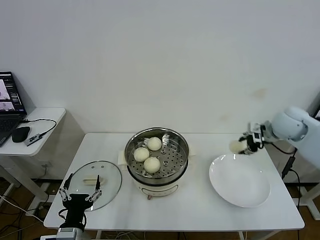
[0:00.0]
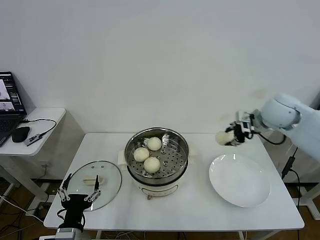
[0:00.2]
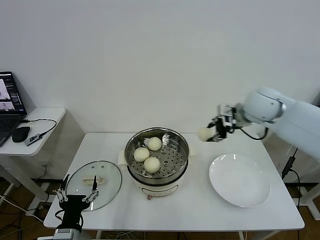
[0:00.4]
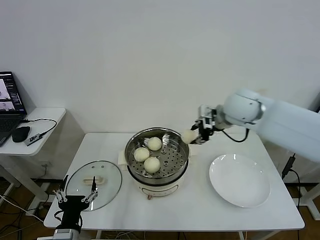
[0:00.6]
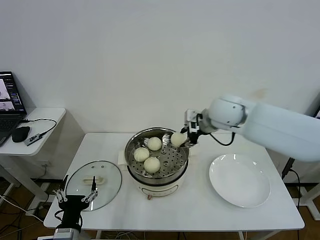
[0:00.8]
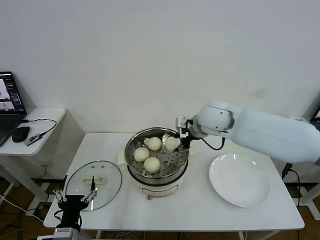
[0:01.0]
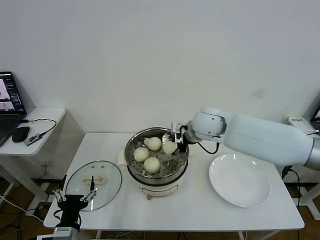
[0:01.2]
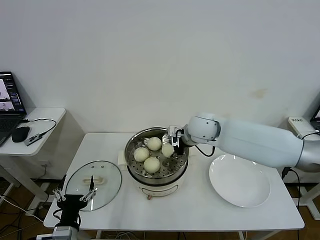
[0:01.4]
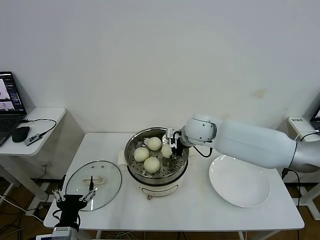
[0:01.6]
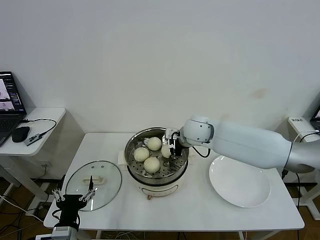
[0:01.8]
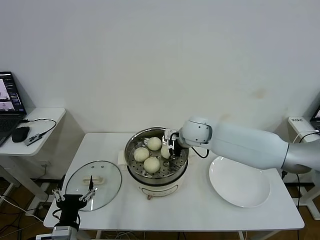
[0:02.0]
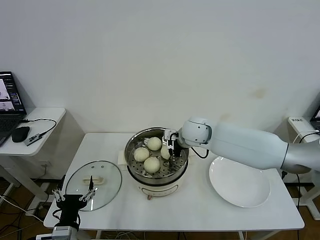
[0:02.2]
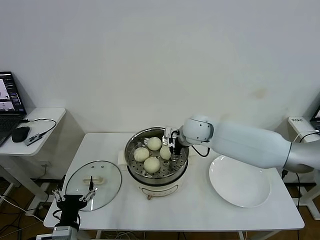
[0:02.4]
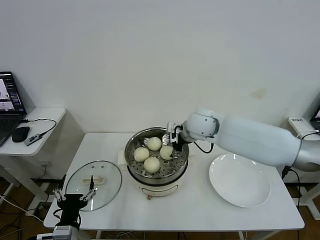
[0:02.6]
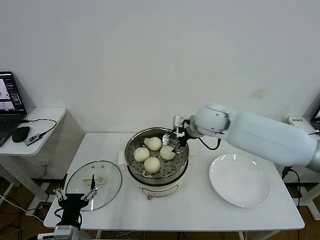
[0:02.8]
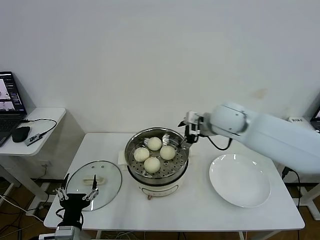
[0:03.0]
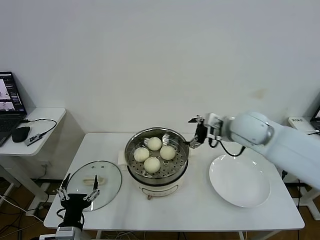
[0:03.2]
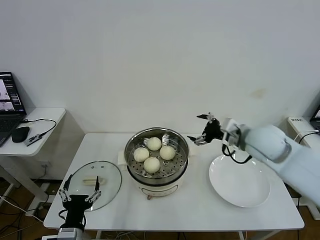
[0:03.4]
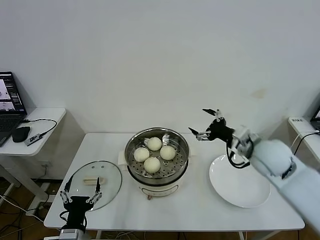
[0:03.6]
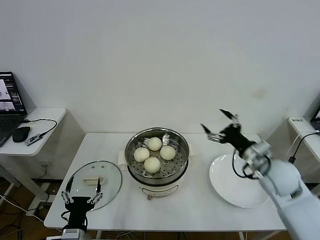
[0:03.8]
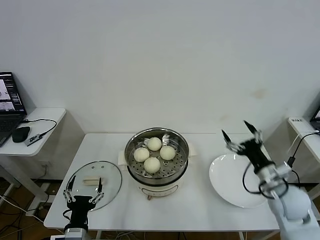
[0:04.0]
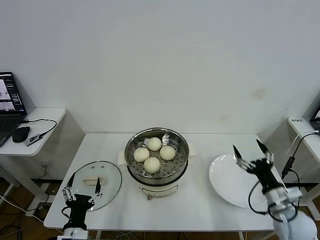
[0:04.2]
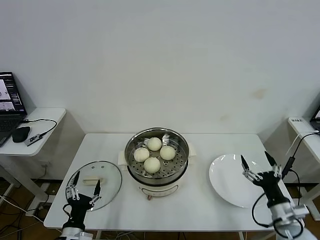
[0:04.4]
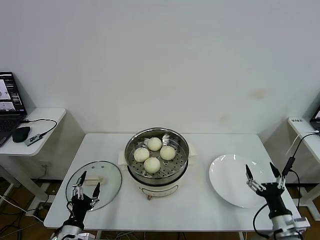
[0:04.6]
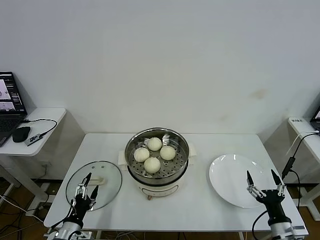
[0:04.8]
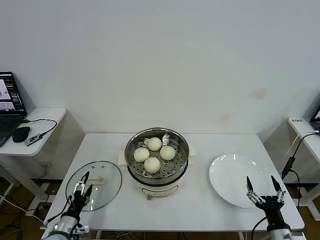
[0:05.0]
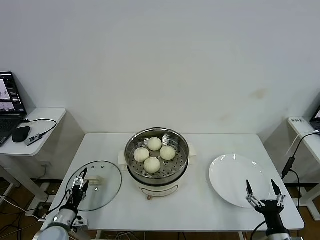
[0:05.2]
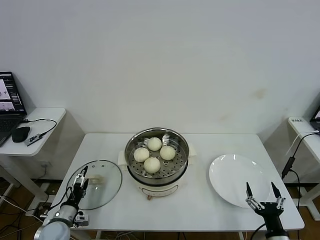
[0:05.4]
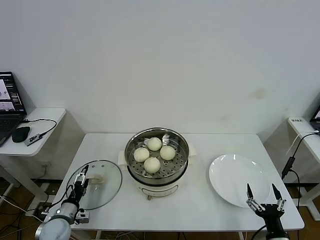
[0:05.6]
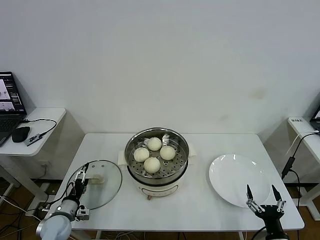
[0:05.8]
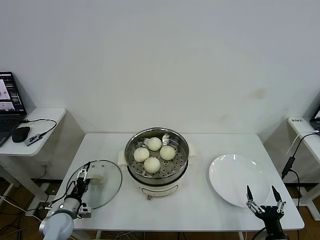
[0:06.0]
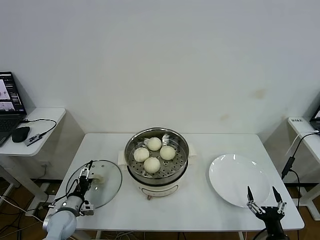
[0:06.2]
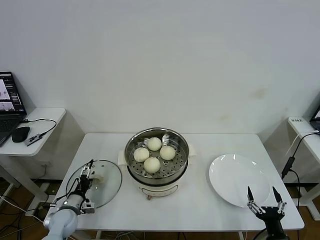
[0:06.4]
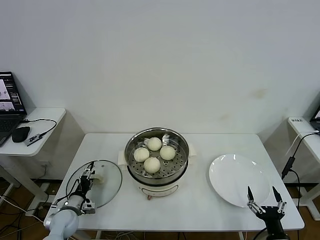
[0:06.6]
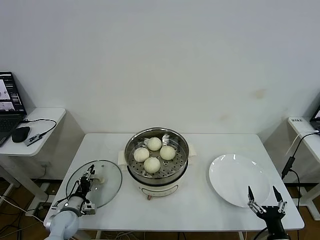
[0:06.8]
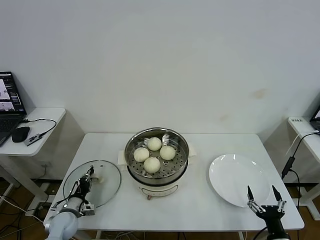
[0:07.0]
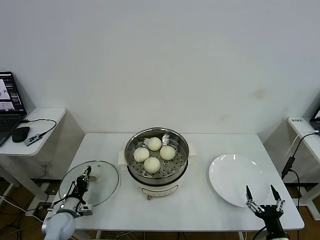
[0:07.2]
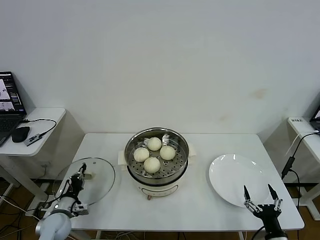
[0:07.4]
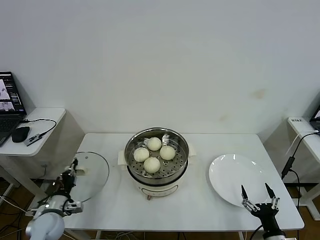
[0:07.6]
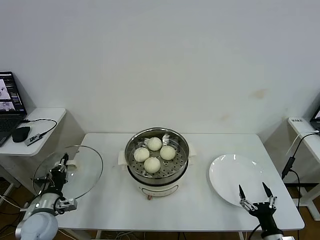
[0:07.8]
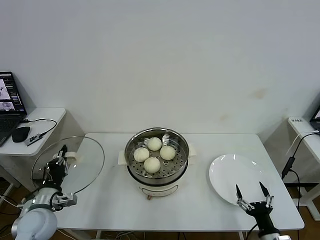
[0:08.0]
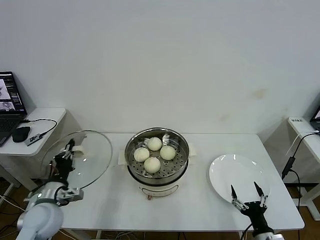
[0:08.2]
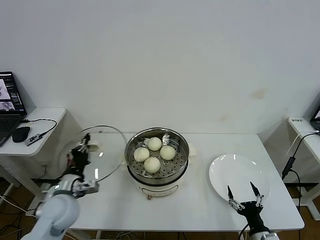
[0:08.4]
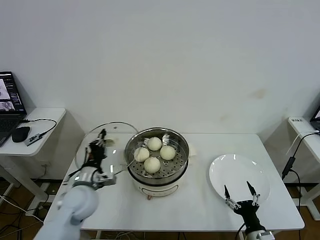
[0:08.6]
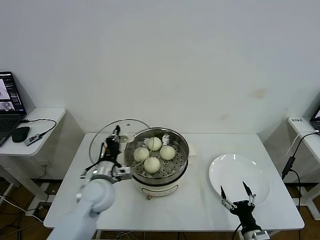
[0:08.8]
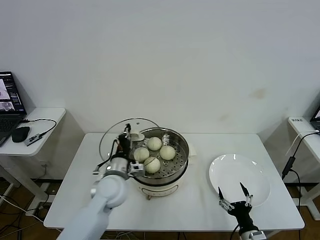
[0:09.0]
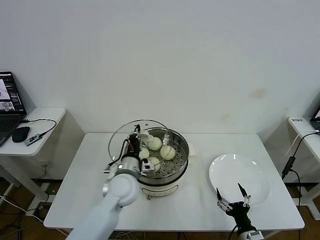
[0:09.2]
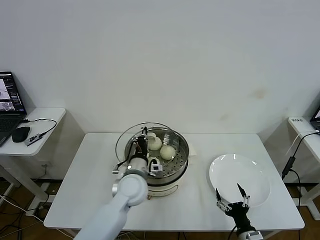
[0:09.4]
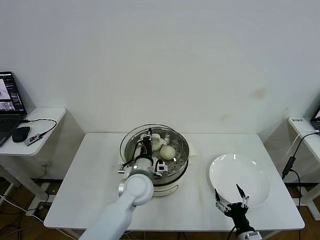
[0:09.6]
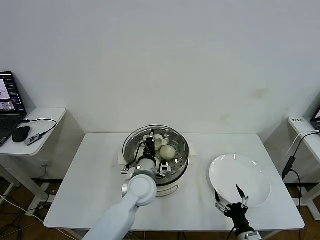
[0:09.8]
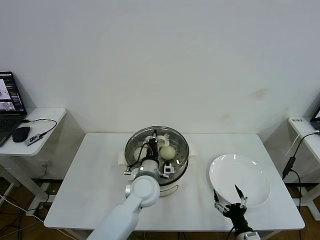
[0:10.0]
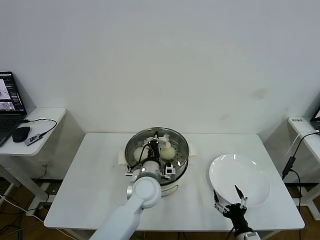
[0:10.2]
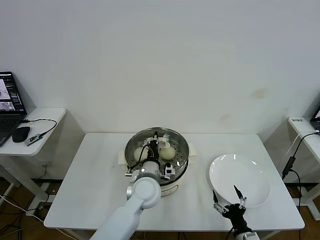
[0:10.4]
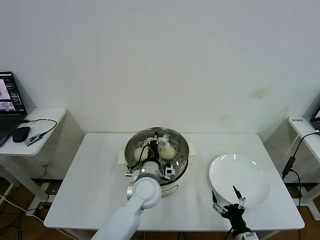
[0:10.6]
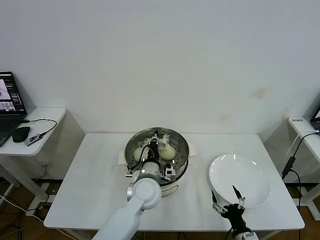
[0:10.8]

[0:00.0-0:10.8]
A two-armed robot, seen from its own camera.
Task of the whole recording: take steamed baozi put them in steamer then cover it.
Step, 0:00.0 to 0:02.4: Place the baozi on the steamer with right gripper.
Step, 0:02.6 to 0:07.2: Grasp the pot lid with left gripper.
0:00.0 to 0:01.6: The right gripper is displaced to the left by approximately 30 cm.
0:01.6 to 0:03.0: The right gripper shifts some 10 cm upward and to the right, and opens its fingers.
0:03.0 to 0:04.6: The left gripper goes approximately 5 cm downward, while the right gripper travels backward, downward and to the right by approximately 40 cm.
0:04.6 to 0:06.2: The right gripper heads backward and downward, covering roughly 10 cm. The left gripper travels forward, to the left and downward by about 15 cm.
0:06.2 to 0:07.8: The left gripper goes some 10 cm upward, and closes.
0:07.8 to 0:09.2: The right gripper goes roughly 5 cm to the left. The left gripper travels to the right by roughly 25 cm.
0:09.2 to 0:10.8: The left gripper is displaced to the right by roughly 10 cm.

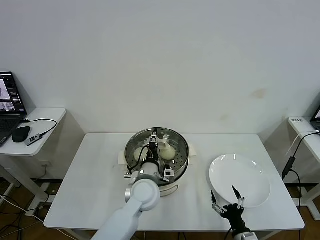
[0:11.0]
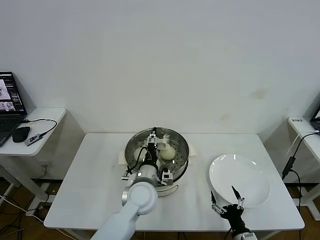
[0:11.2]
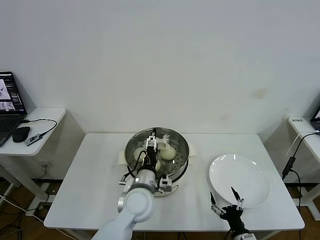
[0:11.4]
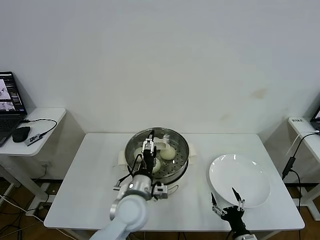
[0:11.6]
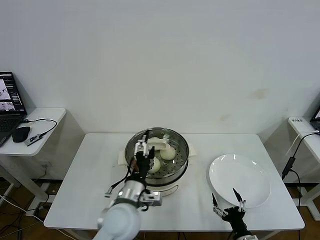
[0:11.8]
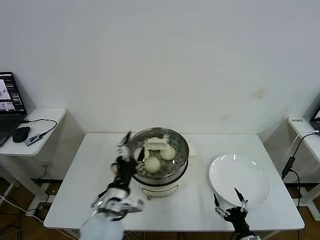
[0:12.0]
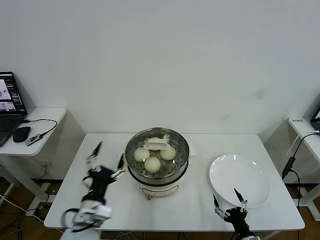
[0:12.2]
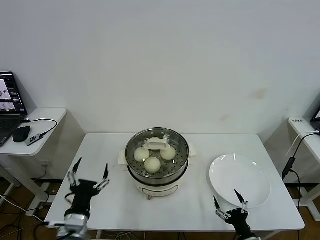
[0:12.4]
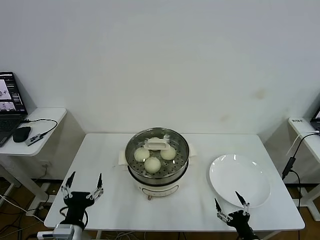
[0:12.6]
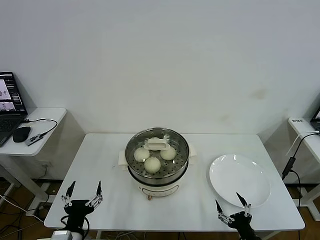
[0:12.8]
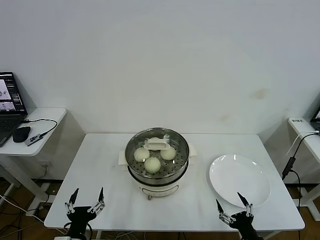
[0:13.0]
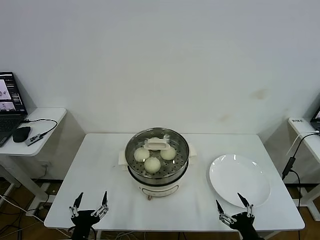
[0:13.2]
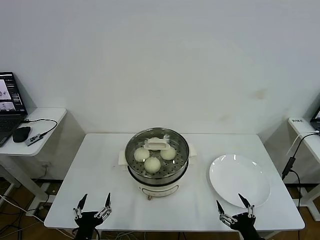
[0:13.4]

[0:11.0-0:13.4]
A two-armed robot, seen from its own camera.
Task of the whole recording: take steamed baozi put them in steamer then cover it.
0:11.0 to 0:12.2: The left gripper is displaced backward and to the left by approximately 20 cm, and opens up.
0:12.2 to 0:13.4: The right gripper heads upward, covering about 5 cm, while the left gripper goes some 15 cm backward, downward and to the left.

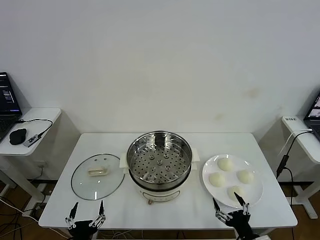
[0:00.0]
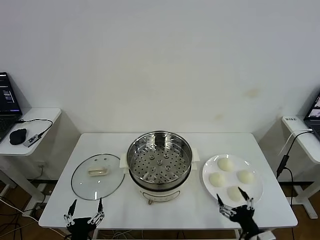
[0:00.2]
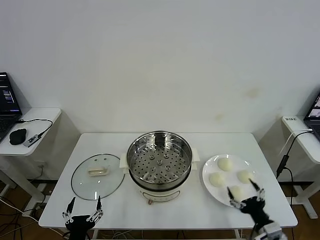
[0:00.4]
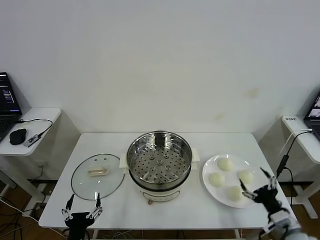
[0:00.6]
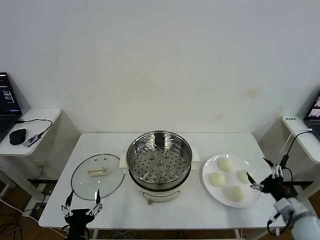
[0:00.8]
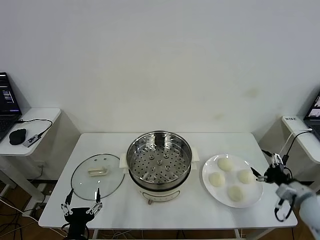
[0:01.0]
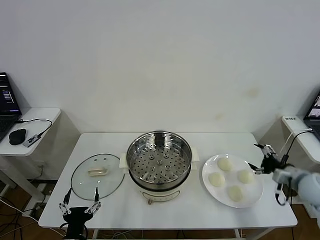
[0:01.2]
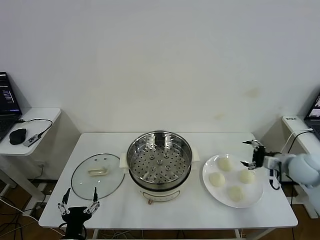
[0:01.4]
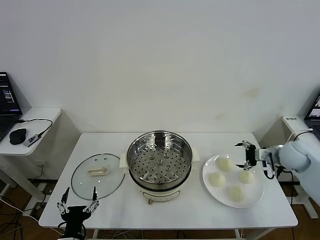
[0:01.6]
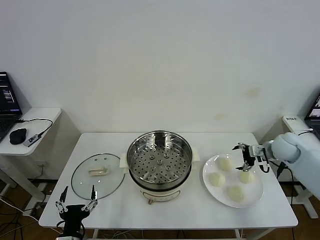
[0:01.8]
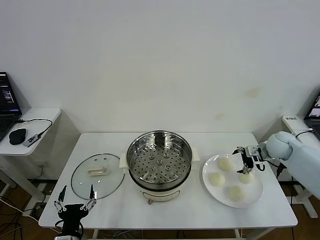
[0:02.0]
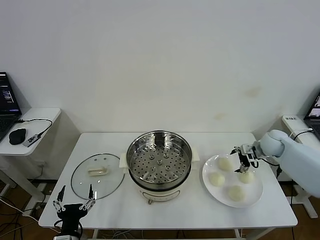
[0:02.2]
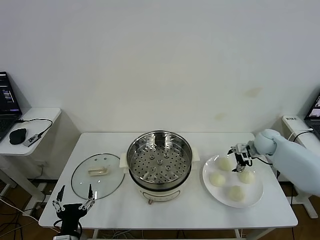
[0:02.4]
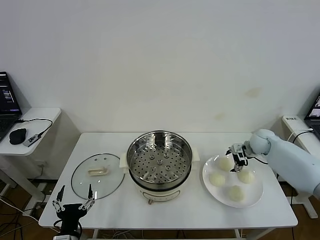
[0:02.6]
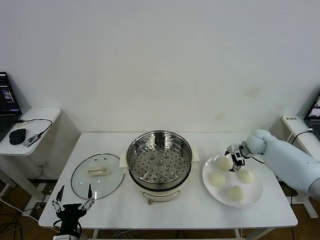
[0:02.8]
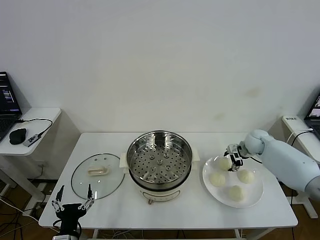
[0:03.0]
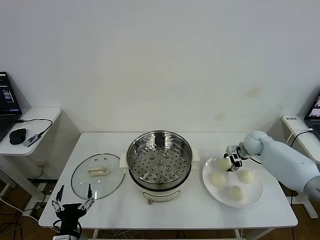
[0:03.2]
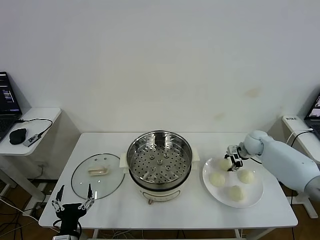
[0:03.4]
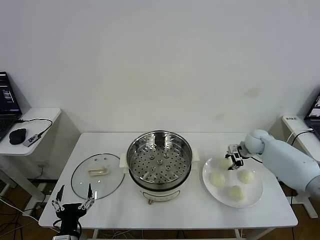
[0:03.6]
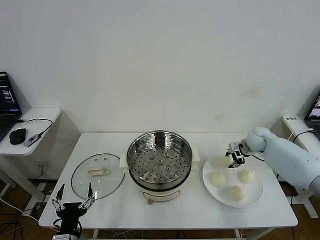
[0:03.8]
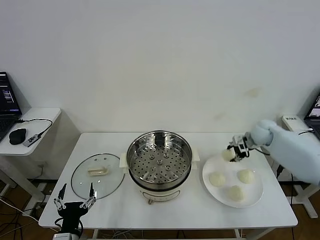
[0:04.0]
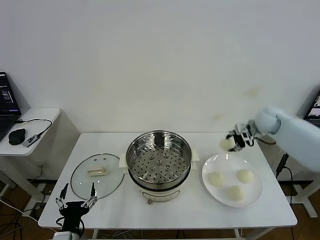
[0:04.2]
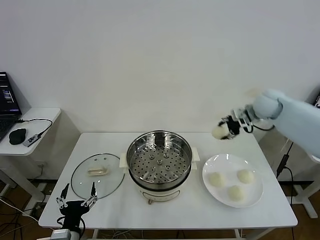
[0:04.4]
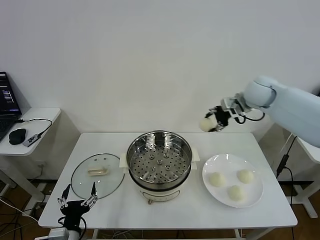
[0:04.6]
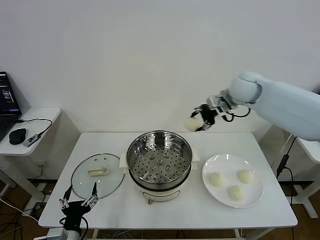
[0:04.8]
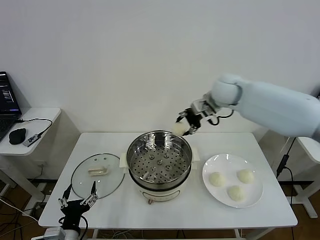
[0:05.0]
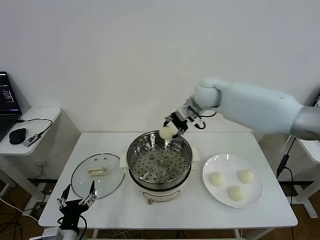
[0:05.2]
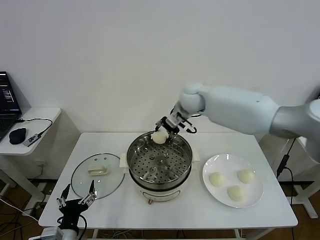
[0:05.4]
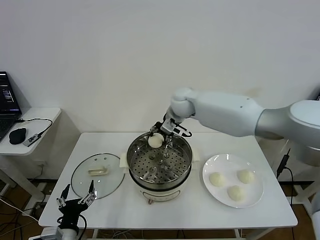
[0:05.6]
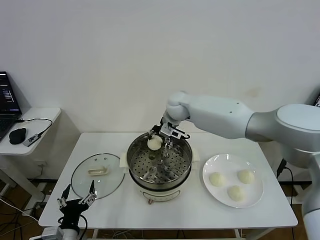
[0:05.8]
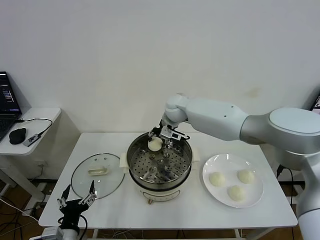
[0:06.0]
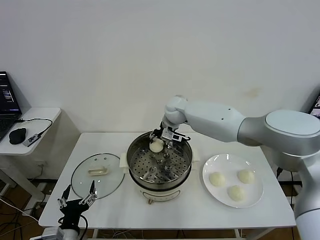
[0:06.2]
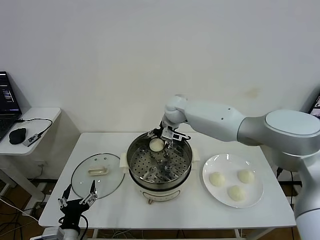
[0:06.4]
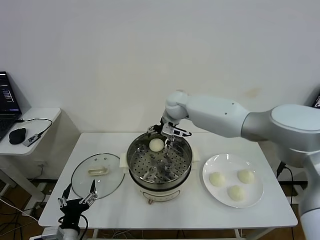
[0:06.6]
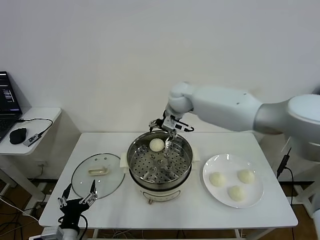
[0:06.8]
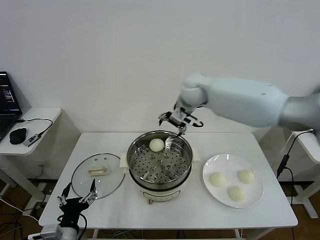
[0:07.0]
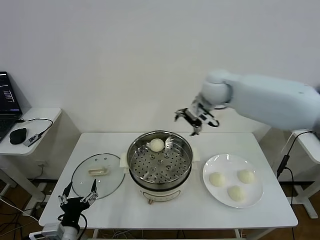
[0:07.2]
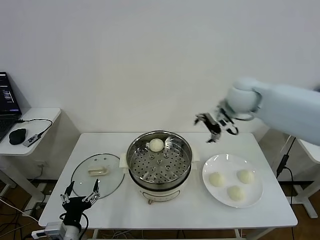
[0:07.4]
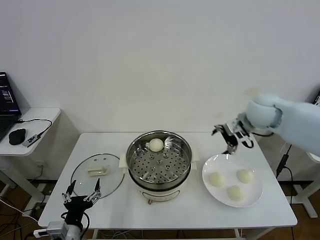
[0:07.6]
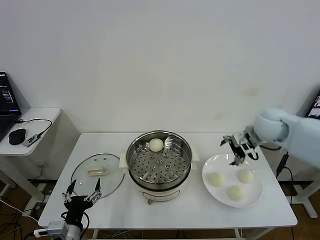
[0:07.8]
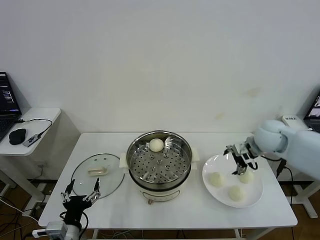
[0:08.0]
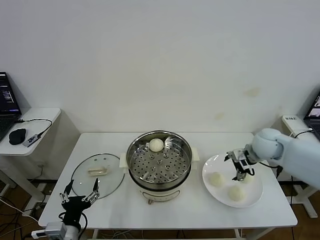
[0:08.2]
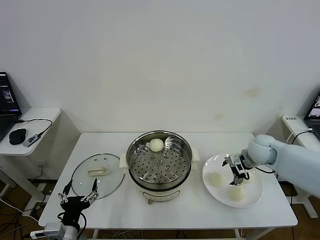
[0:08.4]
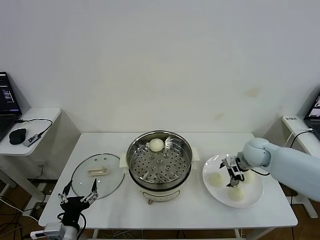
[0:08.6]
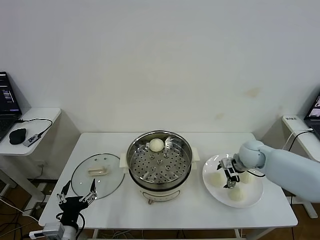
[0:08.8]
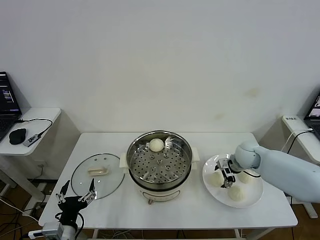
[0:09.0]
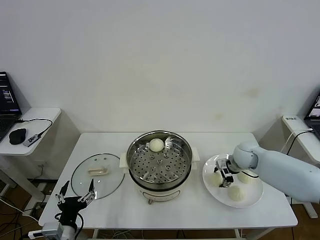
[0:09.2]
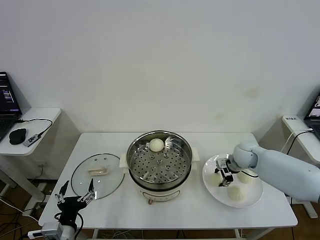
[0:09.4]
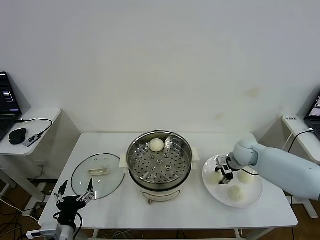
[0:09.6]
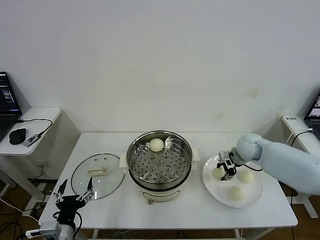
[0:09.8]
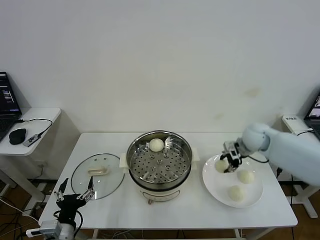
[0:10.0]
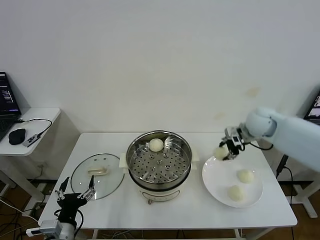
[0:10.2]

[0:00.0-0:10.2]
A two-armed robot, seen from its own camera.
Task of the whole recording: take steamed baozi put them in steamer then cover it.
Step, 0:00.0 to 0:03.4: Grasp the baozi in the plate with right gripper.
Step, 0:03.6 to 0:06.4: Place the baozi on the steamer with right gripper.
Step, 0:06.6 to 0:09.6: Grasp the baozi in the plate with right gripper.
0:01.4 to 0:03.0: The right gripper moves forward, downward and to the left, approximately 15 cm, and closes.
0:03.0 to 0:04.4: The right gripper moves upward, approximately 20 cm, and closes its fingers.
0:04.4 to 0:05.8: The right gripper heads to the left, covering approximately 25 cm.
0:05.8 to 0:07.2: The right gripper travels to the right and upward by about 20 cm, and opens.
0:07.2 to 0:08.8: The right gripper moves downward and to the right, some 25 cm.
0:08.8 to 0:10.2: The right gripper heads upward, covering approximately 15 cm, and closes up.
